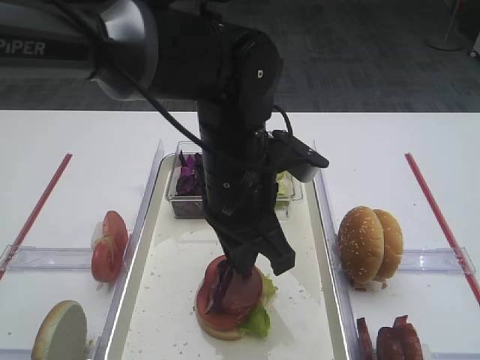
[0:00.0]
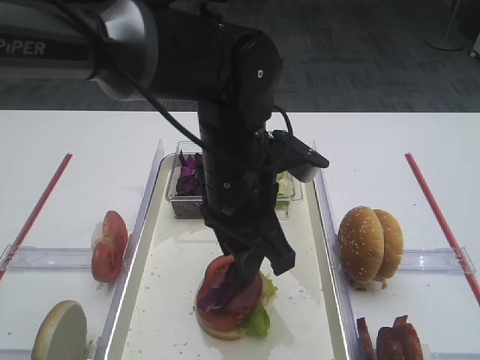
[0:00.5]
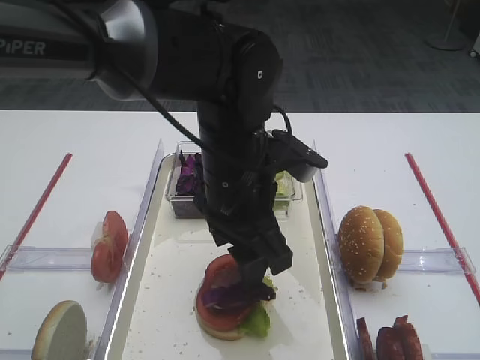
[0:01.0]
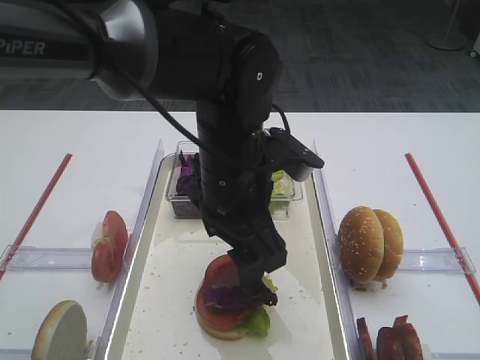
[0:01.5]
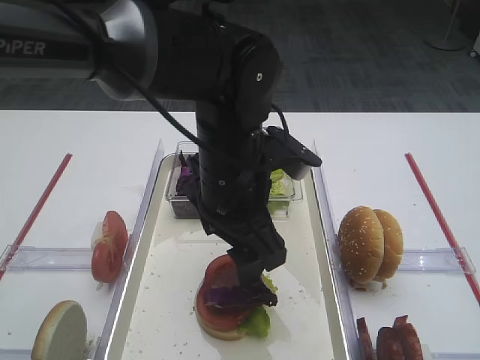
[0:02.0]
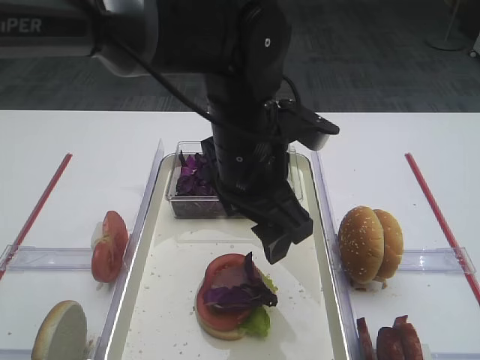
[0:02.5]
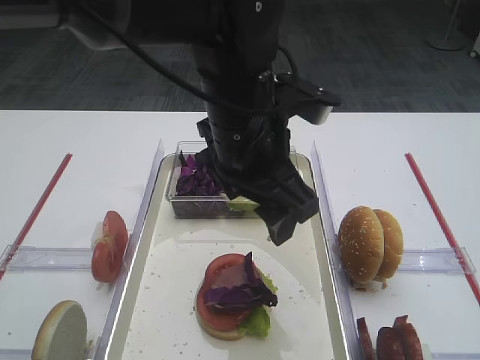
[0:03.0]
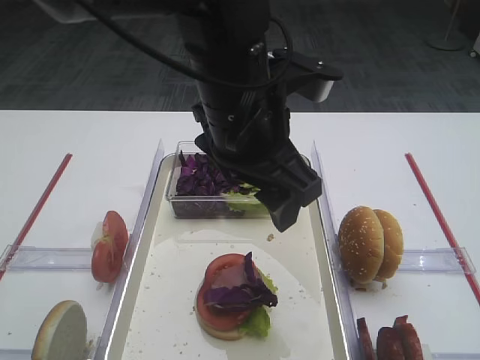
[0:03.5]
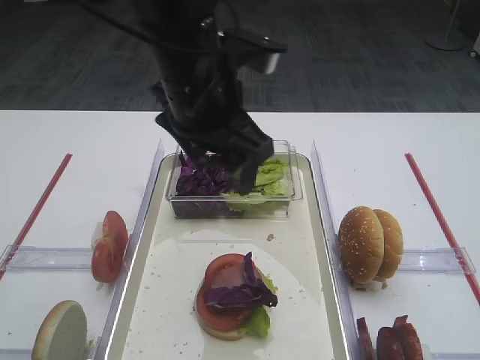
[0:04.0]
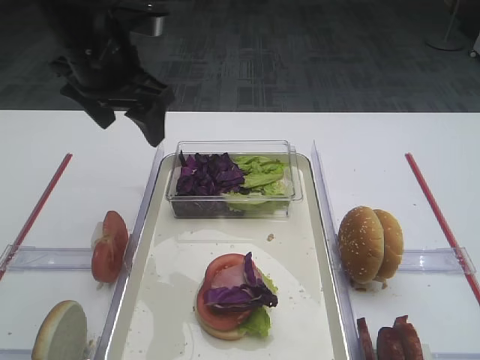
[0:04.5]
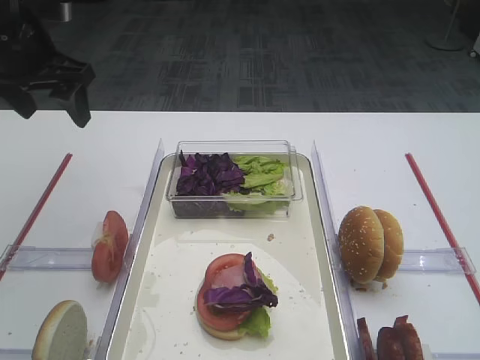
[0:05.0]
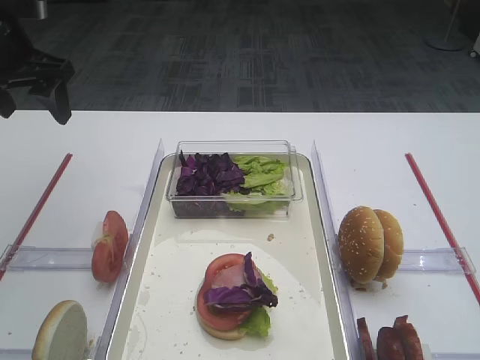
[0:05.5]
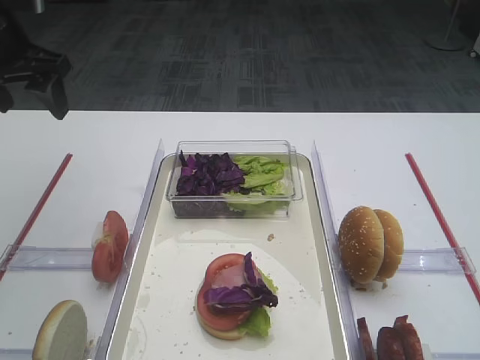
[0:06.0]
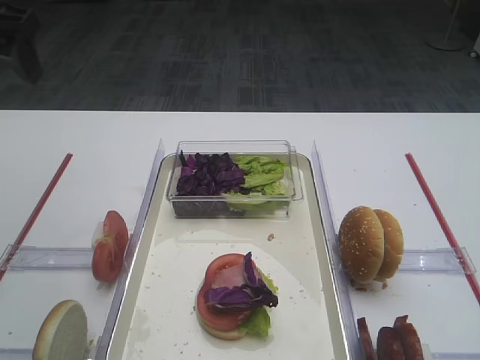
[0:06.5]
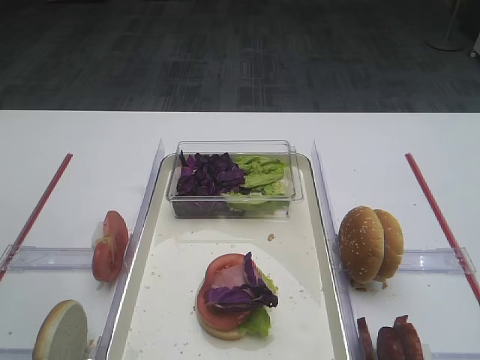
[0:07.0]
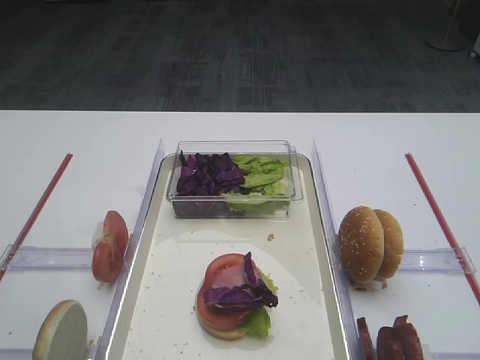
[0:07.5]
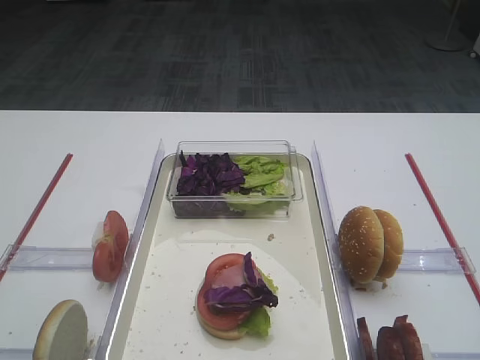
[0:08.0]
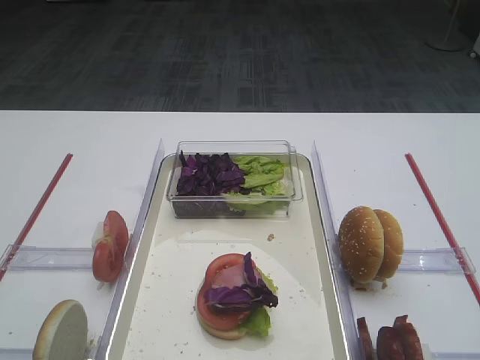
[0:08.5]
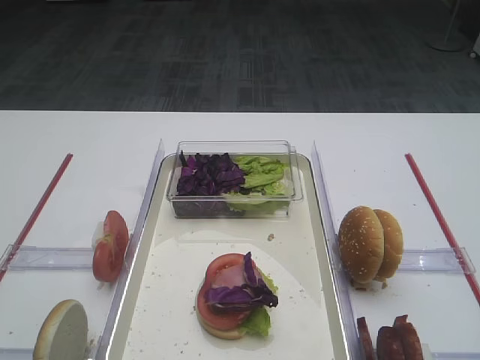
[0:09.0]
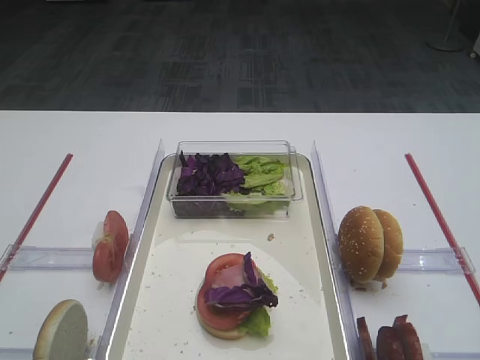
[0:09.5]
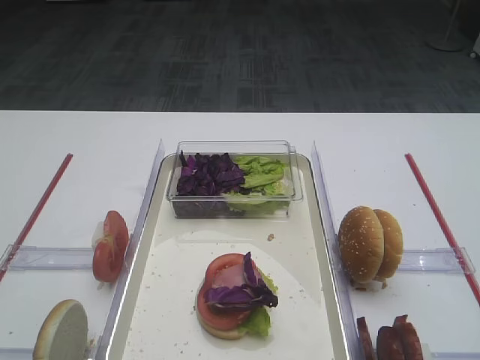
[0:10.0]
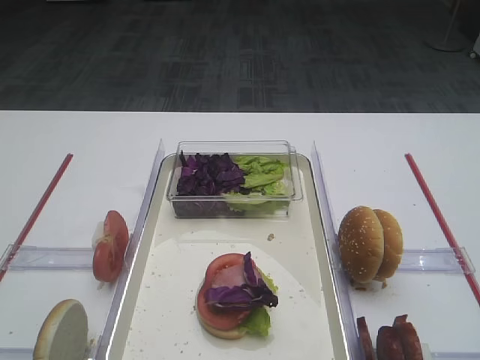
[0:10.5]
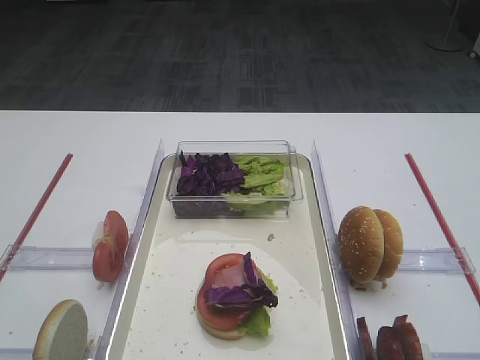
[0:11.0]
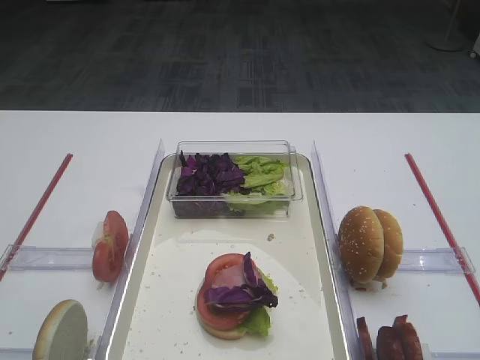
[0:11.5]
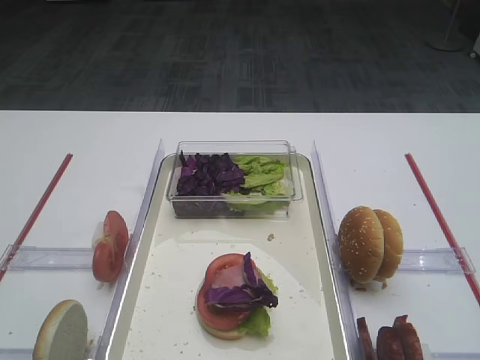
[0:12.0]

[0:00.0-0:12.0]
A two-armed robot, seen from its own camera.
Step, 0:00.0 to 0:02.5: Place the purple cabbage on the cutlet with the left gripper.
0:00.0 to 0:02.0: The left gripper opens its fingers.
0:02.0 to 0:04.0: The left gripper heads upward, covering about 5 cm.
0:04.0 to 0:06.0: The left gripper goes about 25 cm to the left.
0:06.0 to 0:08.0: The left gripper goes about 30 cm backward.

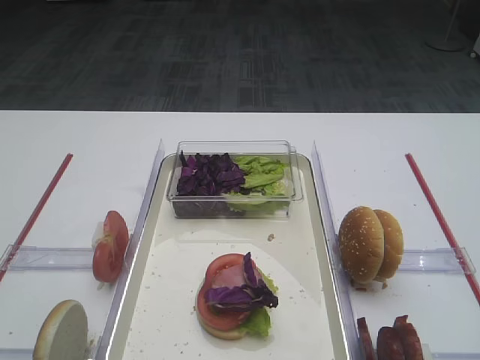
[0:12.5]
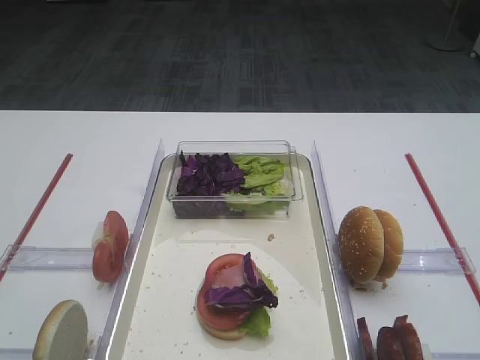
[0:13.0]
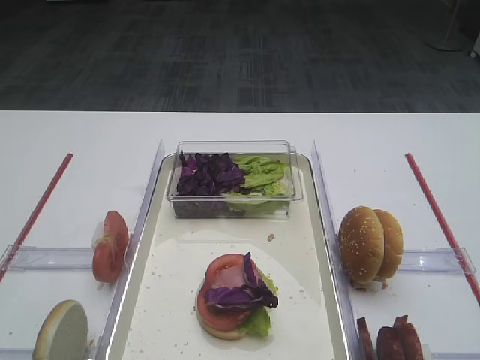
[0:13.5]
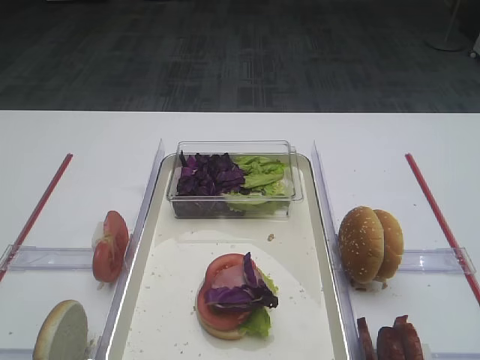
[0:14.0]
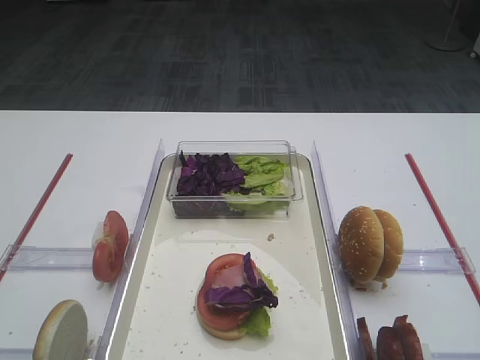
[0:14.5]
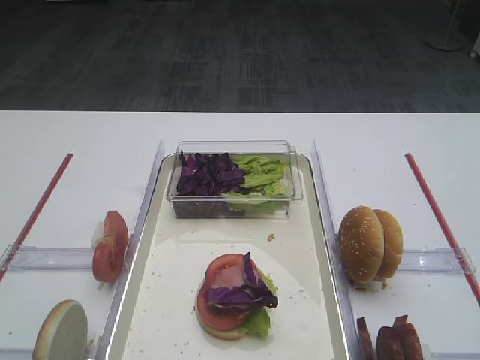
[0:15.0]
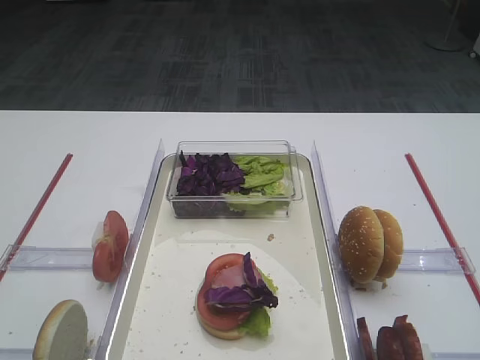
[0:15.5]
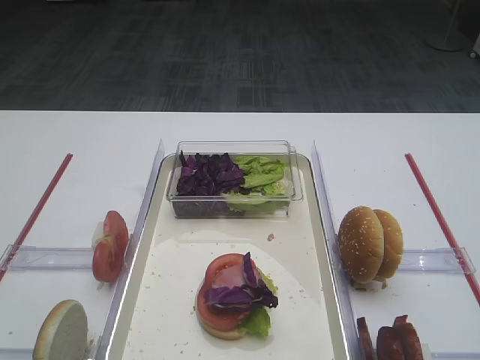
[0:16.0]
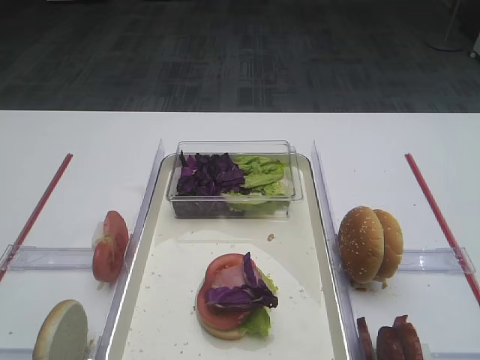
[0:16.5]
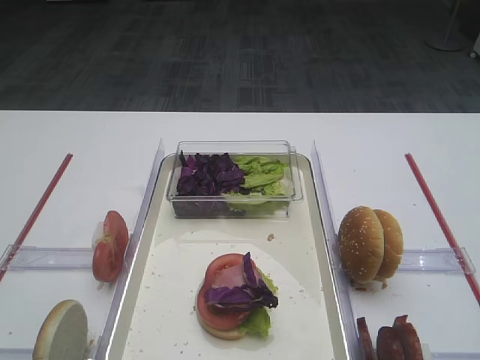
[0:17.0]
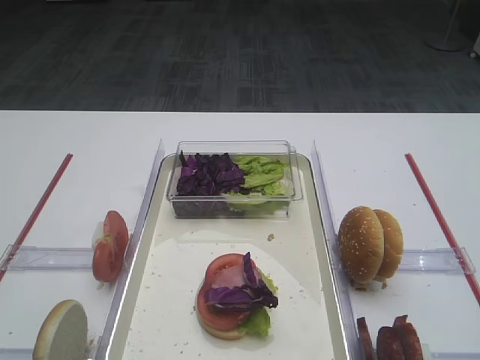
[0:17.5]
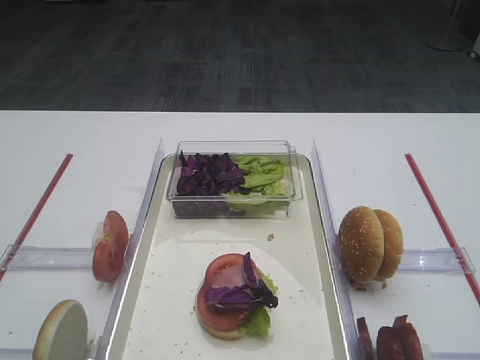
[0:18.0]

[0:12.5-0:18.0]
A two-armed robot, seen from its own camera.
0:12.5 to 0:18.0: Both grippers stay about where they are.

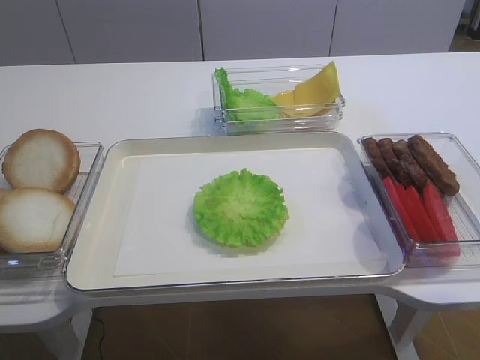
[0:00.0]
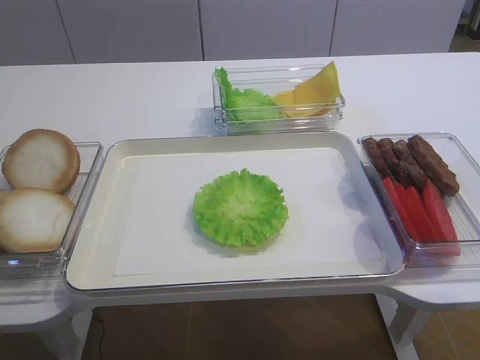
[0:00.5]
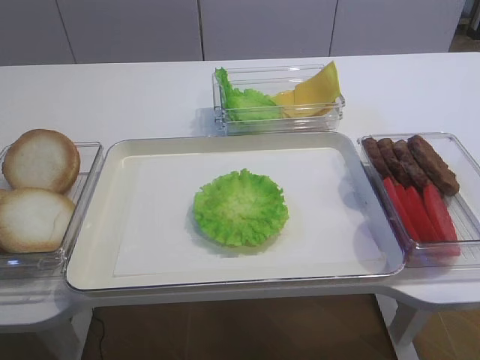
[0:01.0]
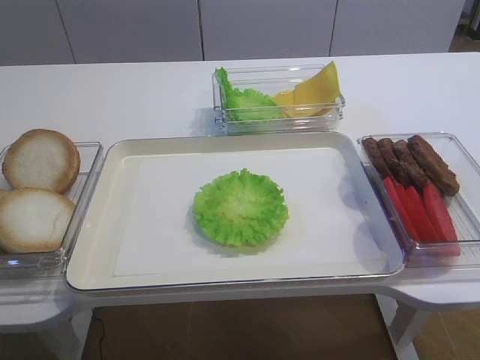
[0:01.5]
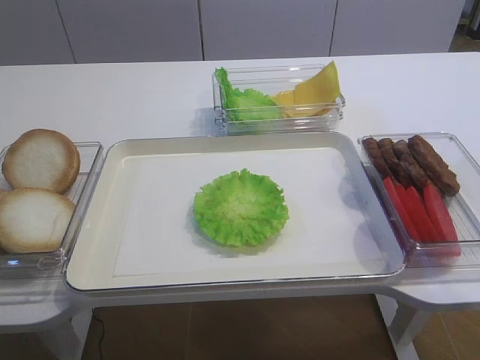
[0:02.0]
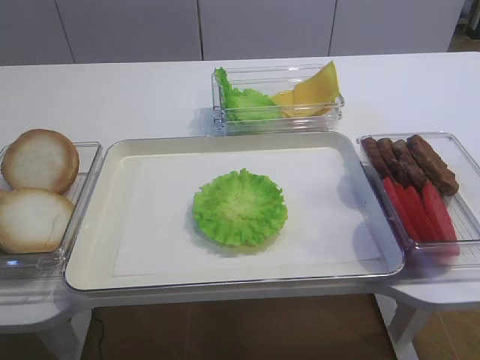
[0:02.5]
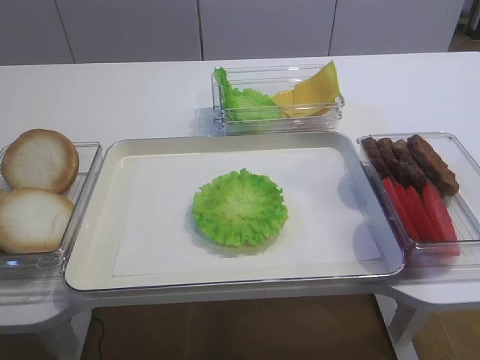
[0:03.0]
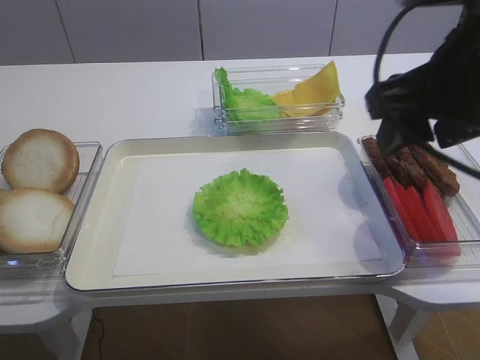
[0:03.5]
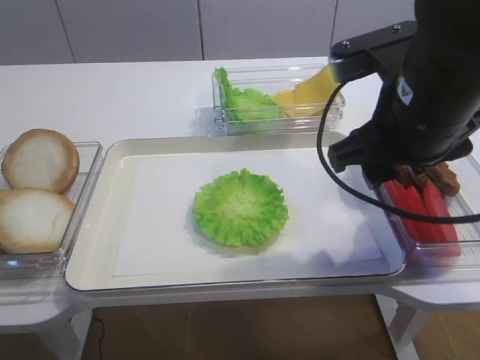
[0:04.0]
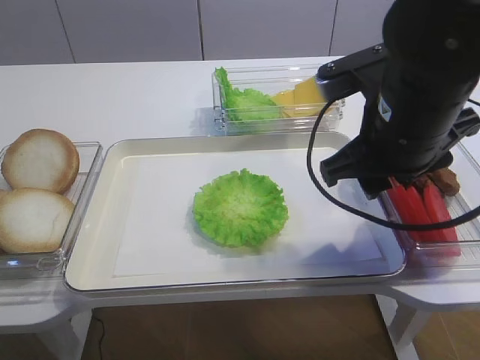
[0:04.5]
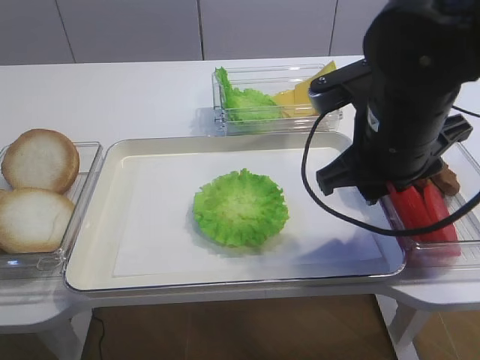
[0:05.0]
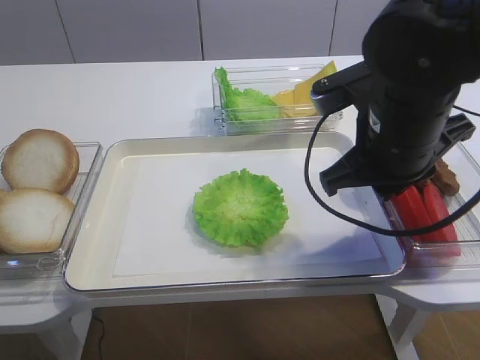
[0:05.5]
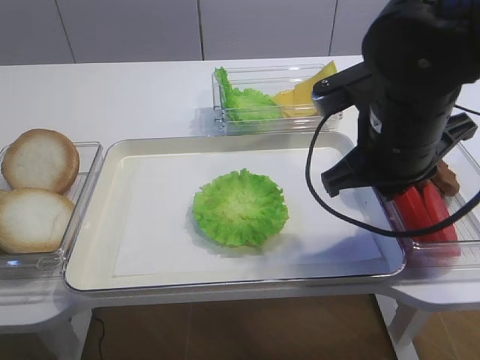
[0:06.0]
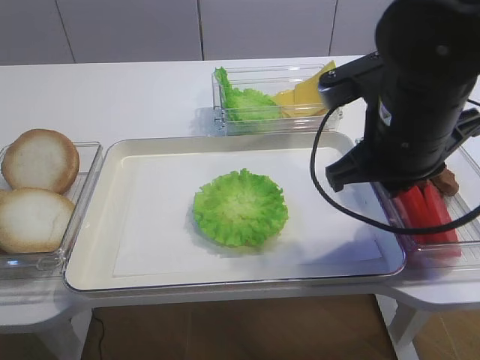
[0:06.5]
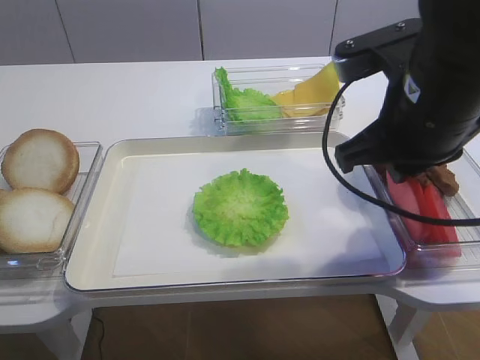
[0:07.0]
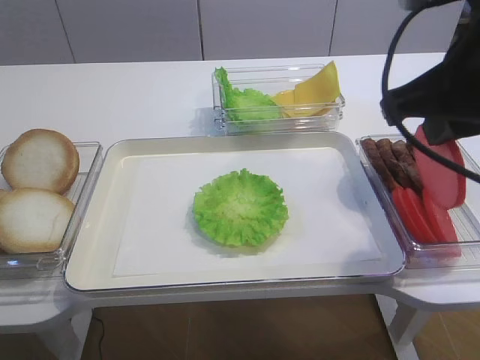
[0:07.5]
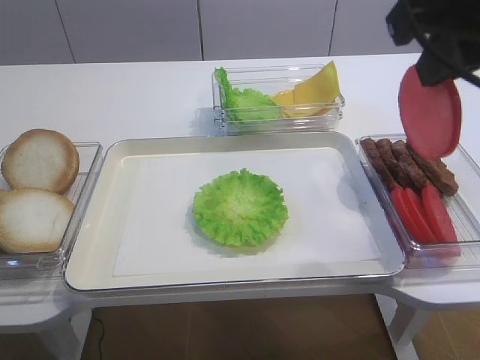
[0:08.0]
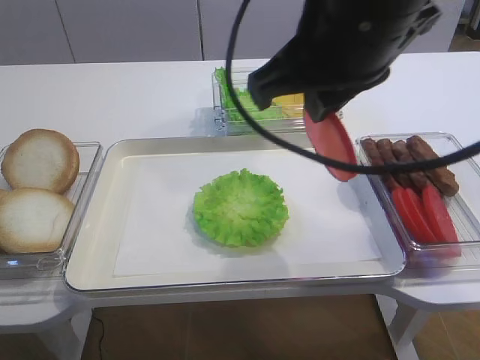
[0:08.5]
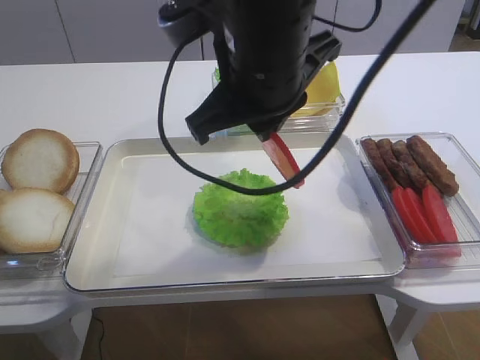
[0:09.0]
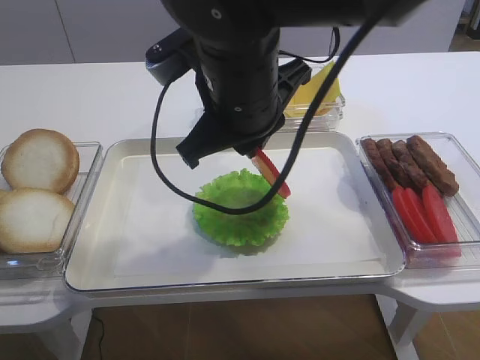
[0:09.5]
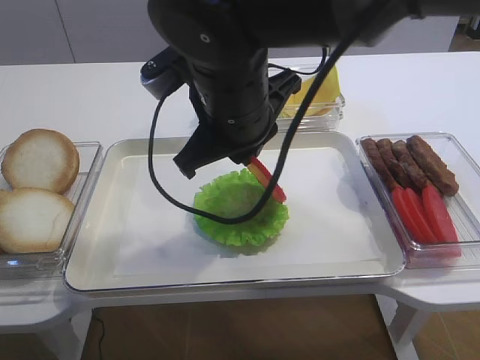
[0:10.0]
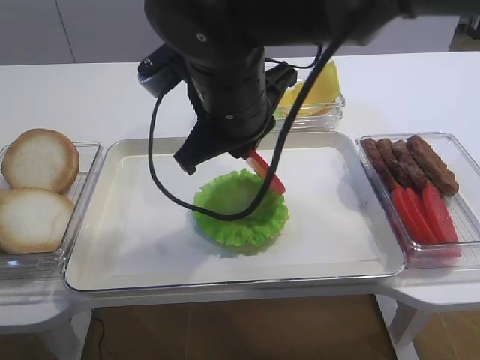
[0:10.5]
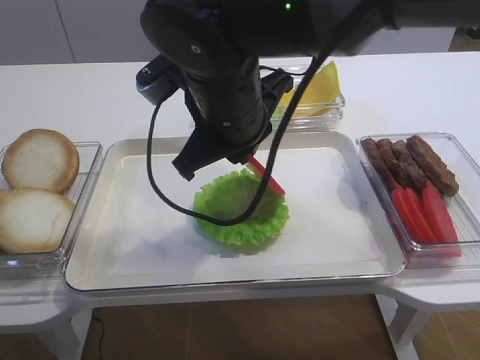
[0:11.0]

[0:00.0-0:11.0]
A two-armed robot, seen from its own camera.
Step, 0:00.0 to 0:07.5: Pick up the tomato slice with the right gripper.
0:02.0 to 0:03.5: The right gripper heads forward and to the left, covering some 25 cm.
0:03.5 to 0:05.5: The right gripper is displaced downward by about 10 cm, and closes its fingers.
0:05.5 to 0:07.5: The right gripper is displaced upward and backward by about 10 cm.
0:07.5 to 0:09.0: The right gripper heads to the left, covering roughly 15 cm.
0:09.0 to 0:11.0: The right gripper shifts approximately 5 cm downward.
